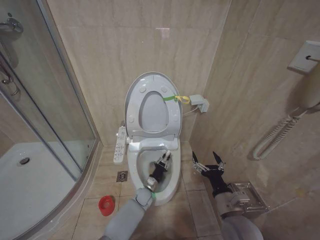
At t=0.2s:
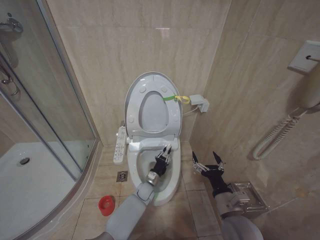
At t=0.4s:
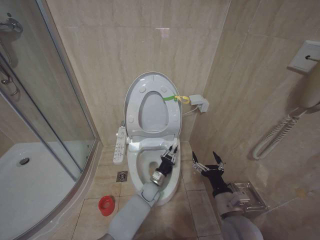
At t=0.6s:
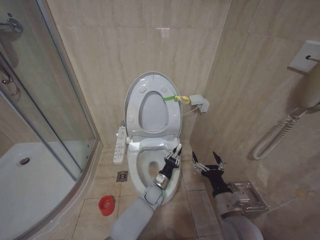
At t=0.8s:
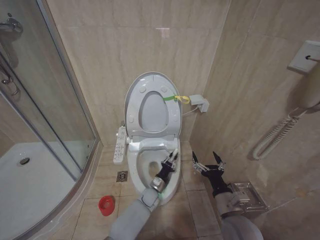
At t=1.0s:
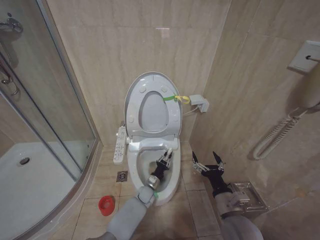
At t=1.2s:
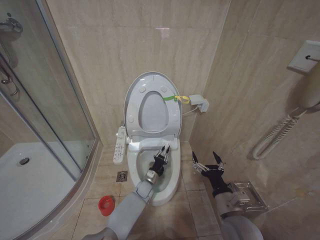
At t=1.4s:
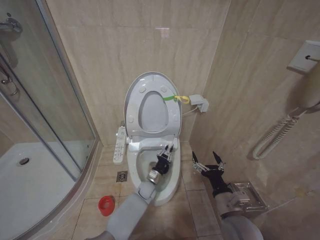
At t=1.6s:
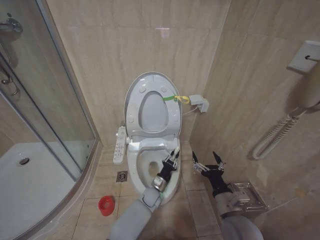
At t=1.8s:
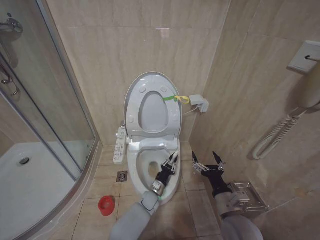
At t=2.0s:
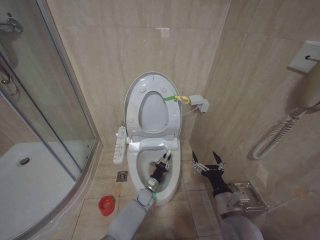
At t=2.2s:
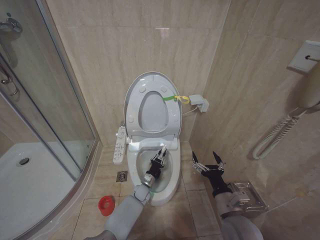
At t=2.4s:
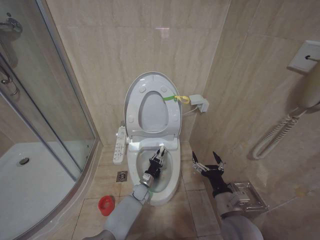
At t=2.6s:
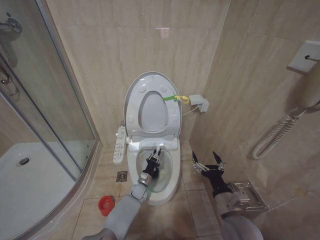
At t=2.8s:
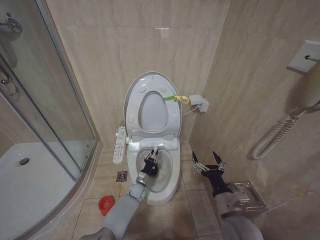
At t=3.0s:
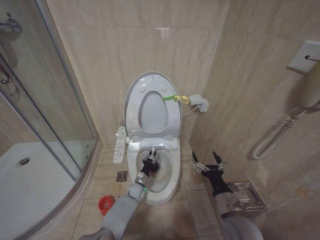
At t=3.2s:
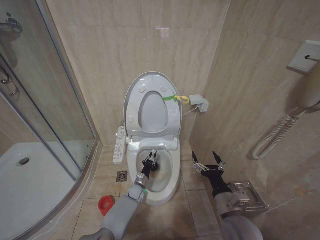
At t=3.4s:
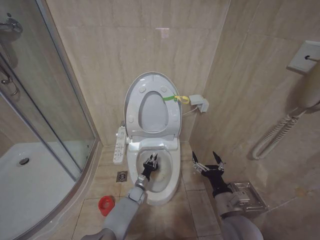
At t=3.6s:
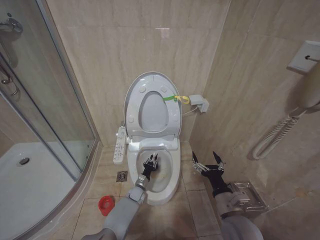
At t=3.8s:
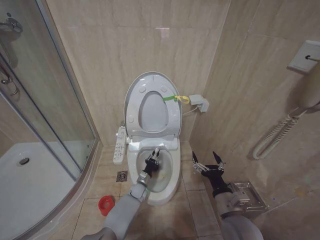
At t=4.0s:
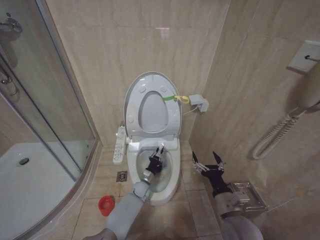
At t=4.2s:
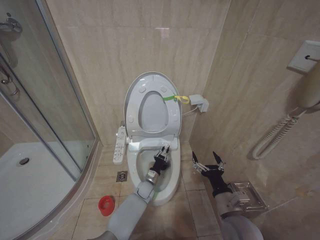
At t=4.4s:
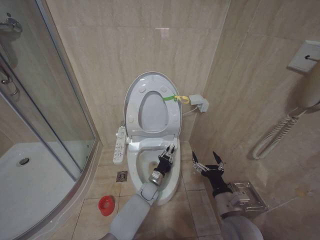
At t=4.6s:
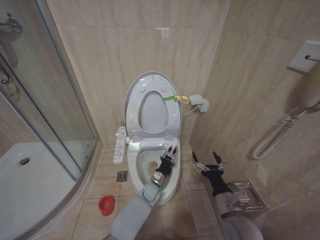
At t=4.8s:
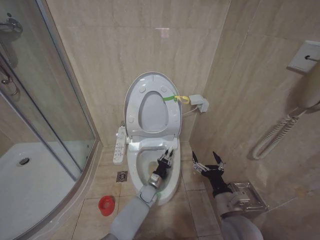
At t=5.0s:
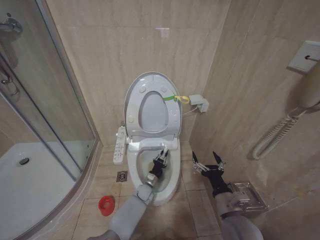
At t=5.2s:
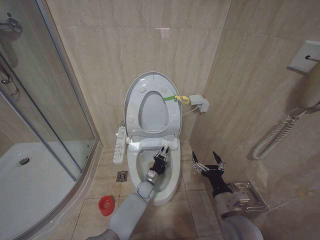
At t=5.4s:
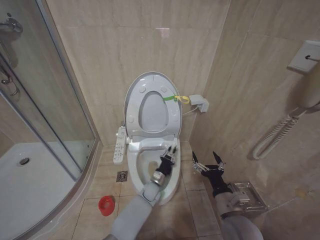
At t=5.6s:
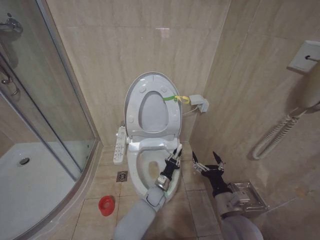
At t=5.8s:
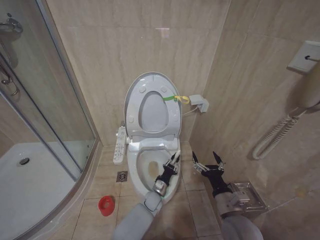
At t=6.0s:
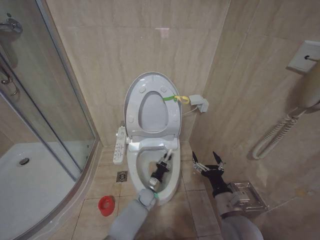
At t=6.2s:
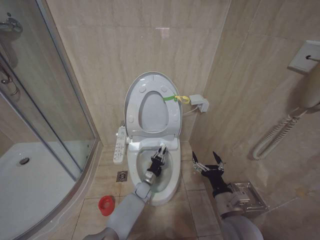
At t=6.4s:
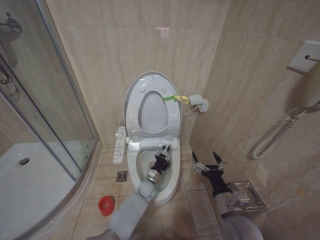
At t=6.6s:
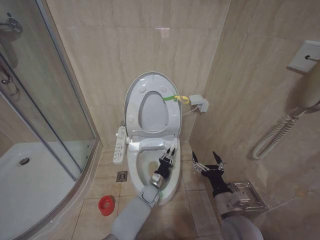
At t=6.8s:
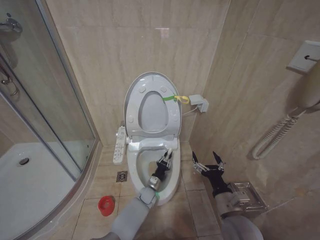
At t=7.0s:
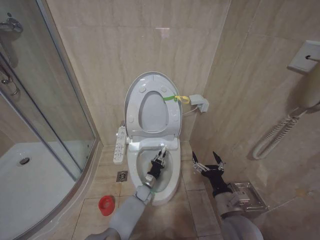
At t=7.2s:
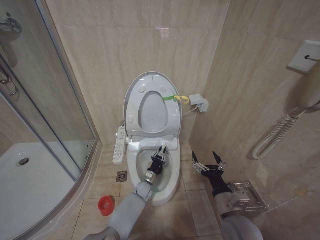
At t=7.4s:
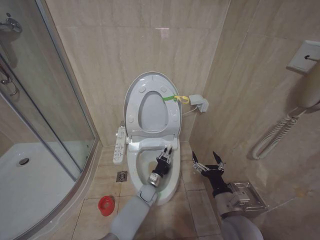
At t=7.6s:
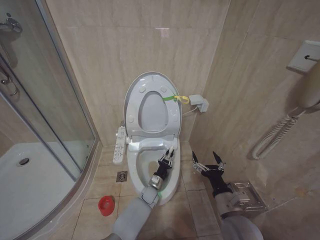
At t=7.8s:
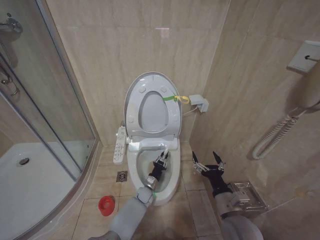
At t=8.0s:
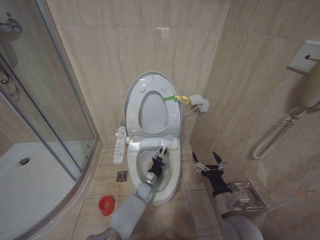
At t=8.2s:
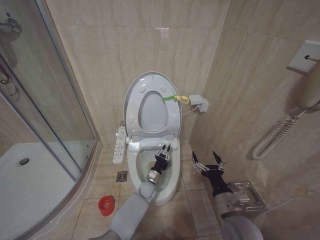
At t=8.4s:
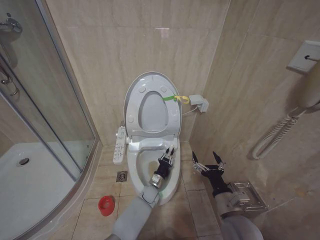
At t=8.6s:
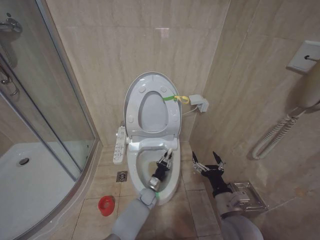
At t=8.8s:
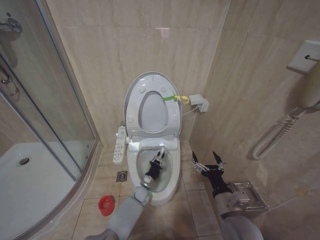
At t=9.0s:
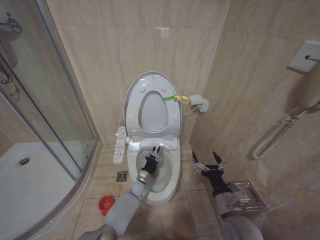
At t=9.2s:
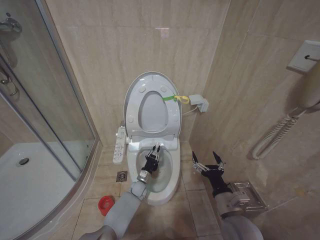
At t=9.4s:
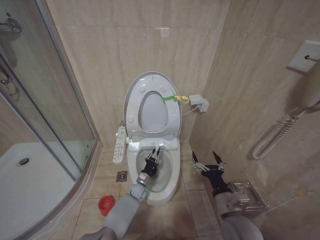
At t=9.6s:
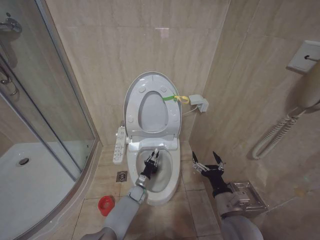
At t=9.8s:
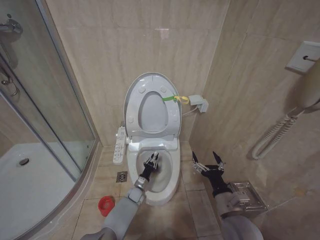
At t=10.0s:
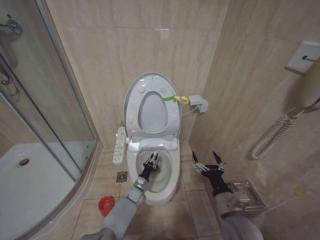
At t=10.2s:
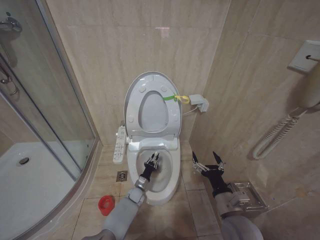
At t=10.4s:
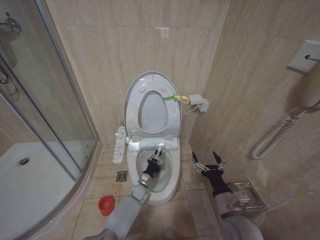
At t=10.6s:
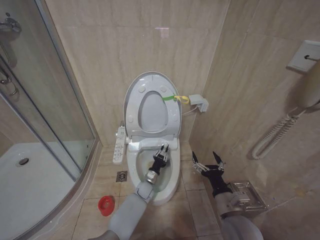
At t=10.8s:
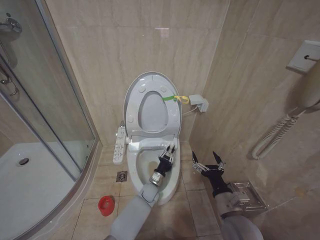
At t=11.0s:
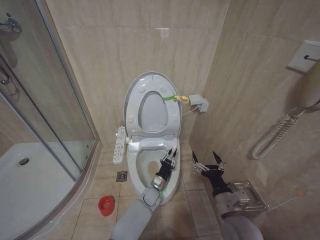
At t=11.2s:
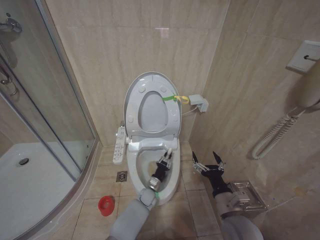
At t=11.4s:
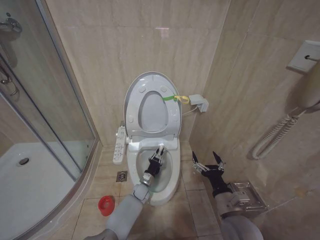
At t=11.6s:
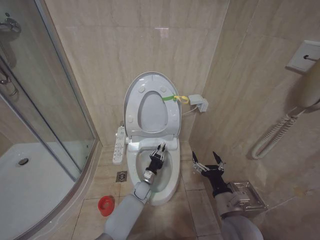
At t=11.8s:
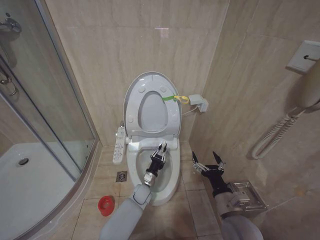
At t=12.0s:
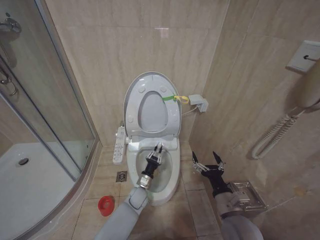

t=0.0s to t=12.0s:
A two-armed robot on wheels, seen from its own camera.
Task of the whole recording: Open the toilet lid, clean the toilet bowl with a toilet brush, close the toilet lid, and flush.
t=0.0s to t=1.6s: The grippers stay close to where they were, moving slightly.
t=1.6s to t=3.0s: The left gripper shifts some 10 cm to the left.
t=3.0s to t=4.4s: The left gripper heads to the right, covering roughly 5 cm.
t=7.6s to t=9.0s: The left gripper is displaced to the left by about 5 cm.
t=9.0s to t=10.4s: There are only small adjustments of the grippers.
t=10.4s to t=12.0s: The left gripper moves upward, roughly 5 cm.

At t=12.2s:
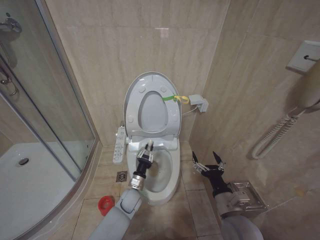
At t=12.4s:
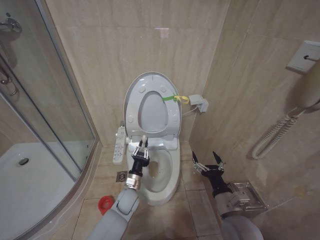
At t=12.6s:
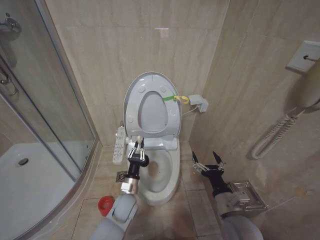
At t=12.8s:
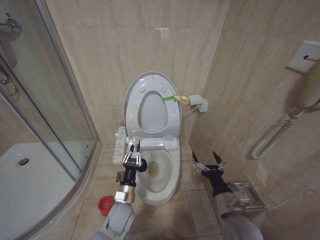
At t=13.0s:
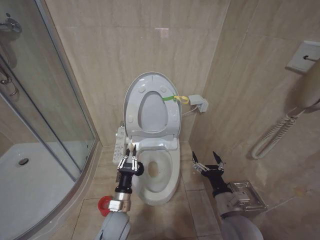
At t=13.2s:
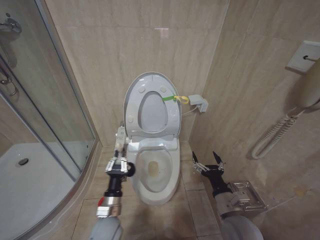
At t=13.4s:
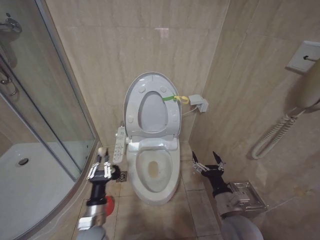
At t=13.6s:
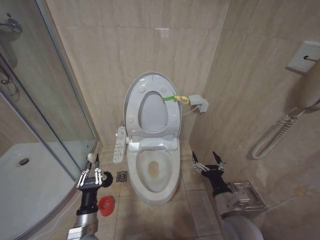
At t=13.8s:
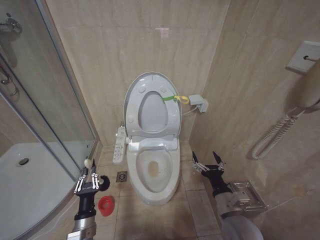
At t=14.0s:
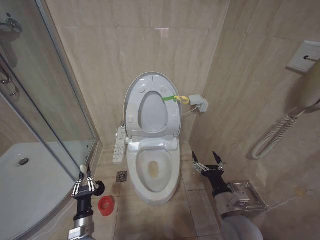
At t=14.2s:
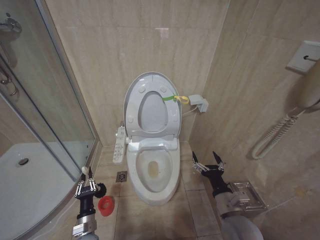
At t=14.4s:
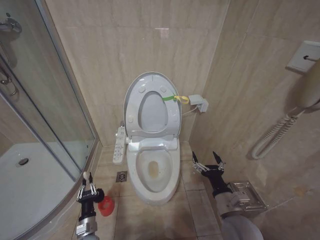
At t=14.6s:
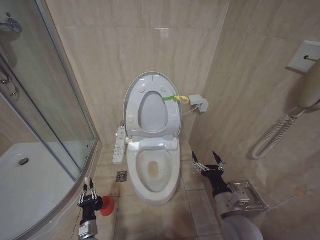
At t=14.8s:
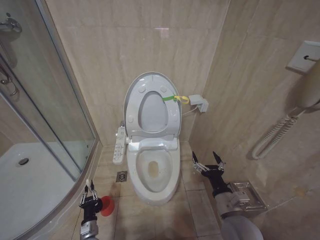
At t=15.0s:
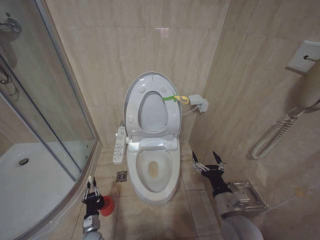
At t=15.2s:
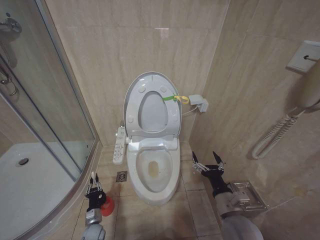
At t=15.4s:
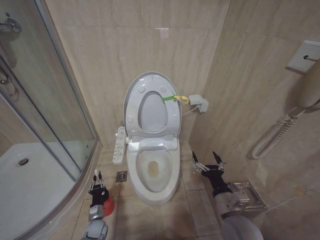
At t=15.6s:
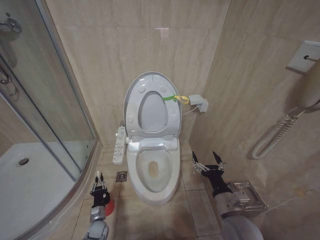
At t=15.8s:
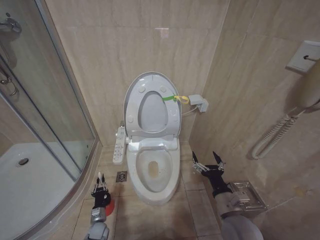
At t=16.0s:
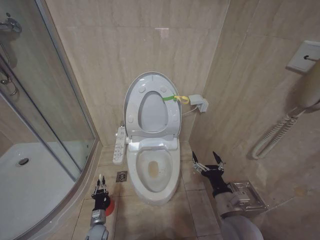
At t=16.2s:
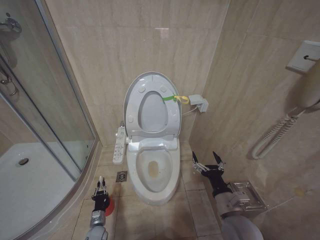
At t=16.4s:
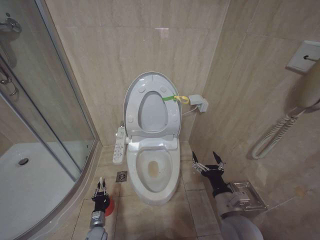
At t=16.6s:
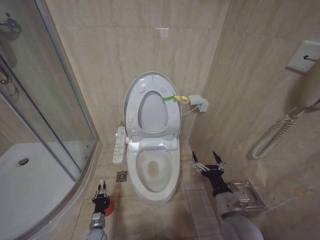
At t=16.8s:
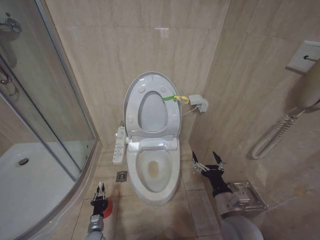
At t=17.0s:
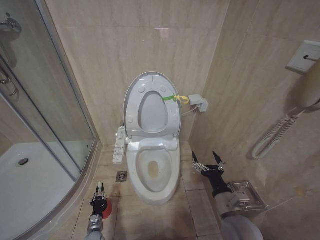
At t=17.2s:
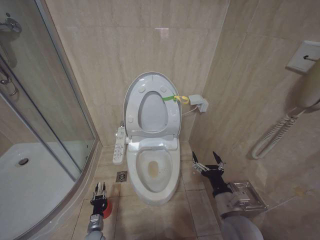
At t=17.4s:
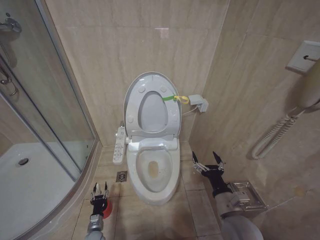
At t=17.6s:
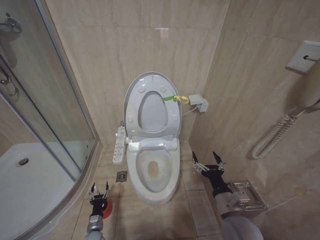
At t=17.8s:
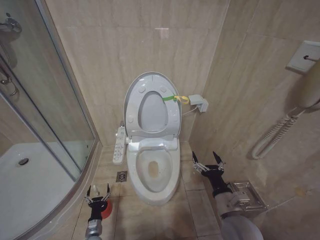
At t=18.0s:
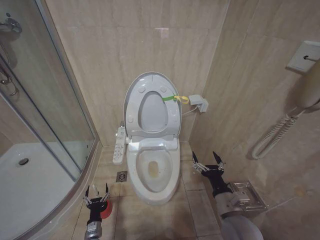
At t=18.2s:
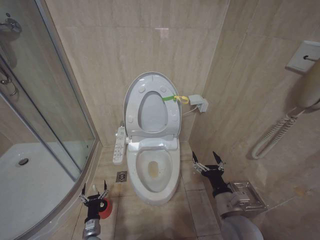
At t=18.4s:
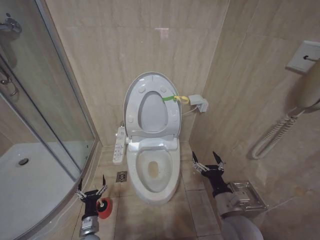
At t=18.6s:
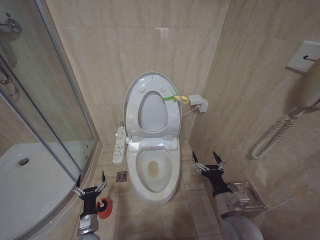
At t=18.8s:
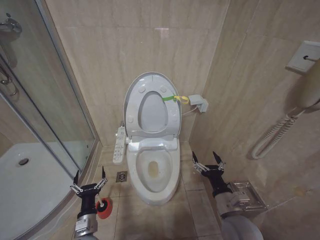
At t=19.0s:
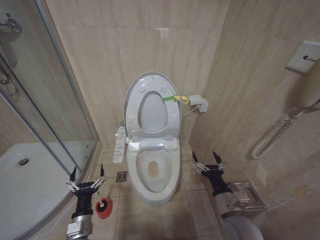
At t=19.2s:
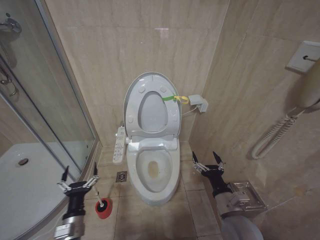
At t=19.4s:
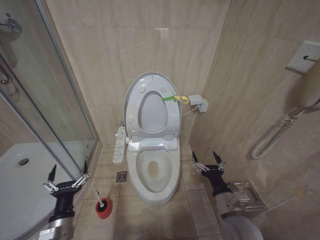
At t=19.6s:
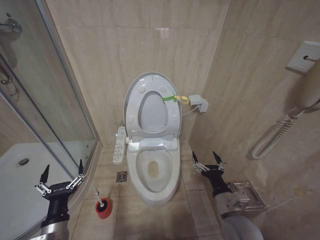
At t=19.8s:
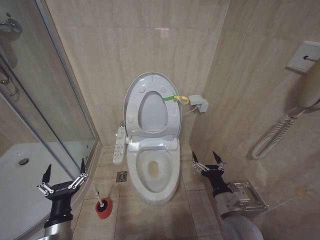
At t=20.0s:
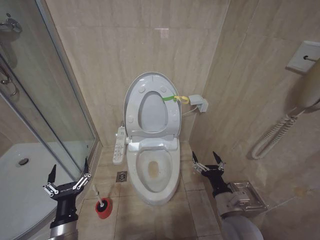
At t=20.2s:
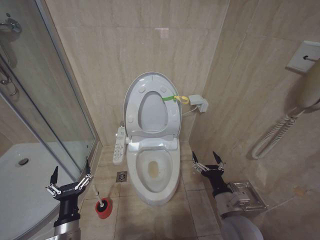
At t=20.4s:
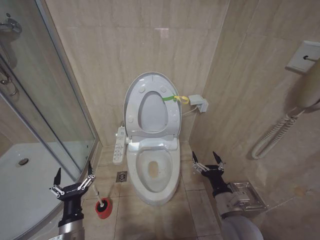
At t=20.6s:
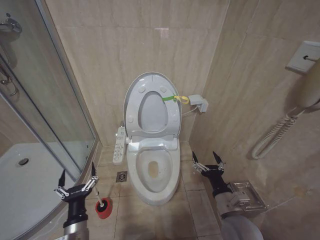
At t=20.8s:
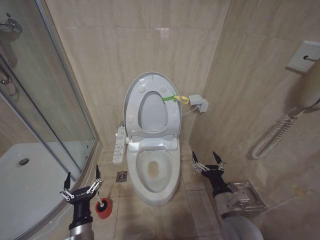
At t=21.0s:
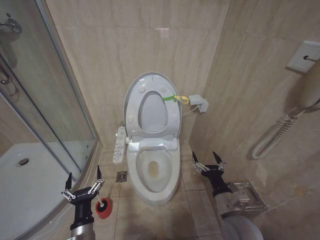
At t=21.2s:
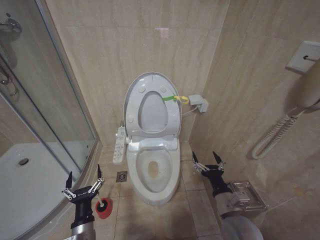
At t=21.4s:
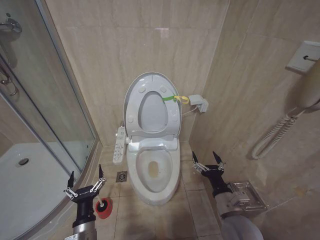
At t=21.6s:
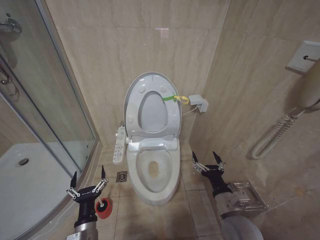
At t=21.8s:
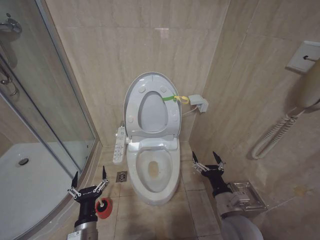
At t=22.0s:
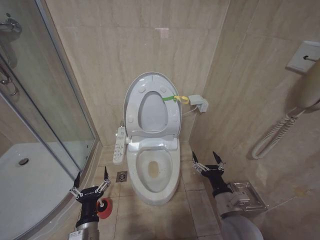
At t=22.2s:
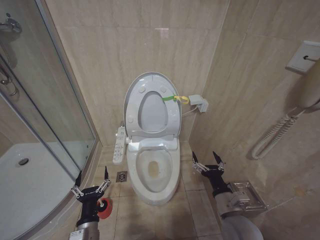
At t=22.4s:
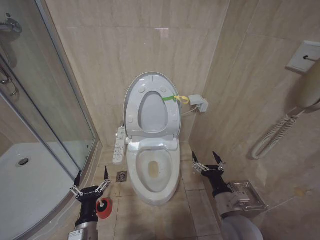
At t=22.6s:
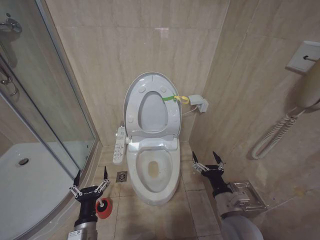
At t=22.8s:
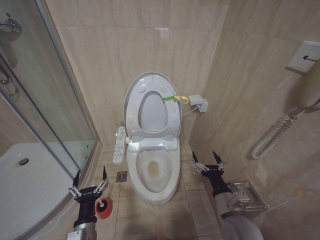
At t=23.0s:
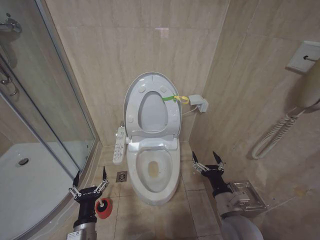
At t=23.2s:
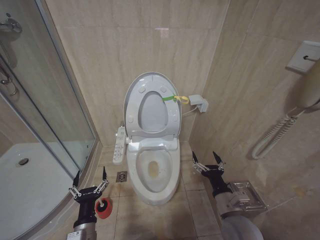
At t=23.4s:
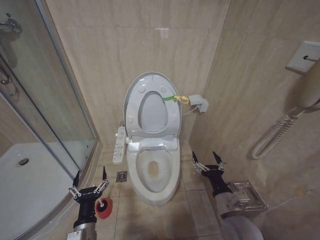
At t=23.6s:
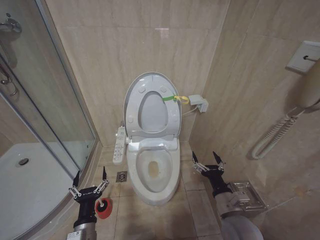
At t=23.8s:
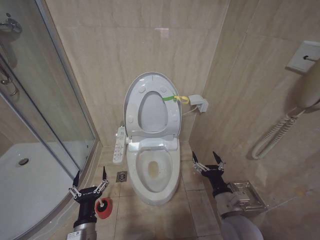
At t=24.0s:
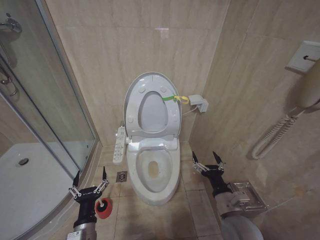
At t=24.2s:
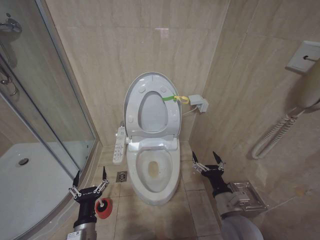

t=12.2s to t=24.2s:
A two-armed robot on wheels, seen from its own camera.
Task of the whole recording: Open the toilet lid, clean the toilet bowl with a toilet brush, close the toilet lid, and flush.
t=12.2s to t=13.8s: The left gripper travels backward, to the left and upward by some 25 cm.
t=13.8s to t=15.2s: The left gripper travels downward and forward by roughly 25 cm.
t=15.2s to t=16.6s: The grippers make only small movements.
t=16.6s to t=18.2s: The left gripper shifts by approximately 5 cm, and opens.
t=18.2s to t=19.8s: The left gripper heads upward, covering some 30 cm.
t=19.8s to t=21.2s: The left gripper moves to the right and downward, about 10 cm.
t=21.2s to t=22.6s: The grippers move only a little.
t=22.6s to t=24.2s: Neither gripper changes place.
